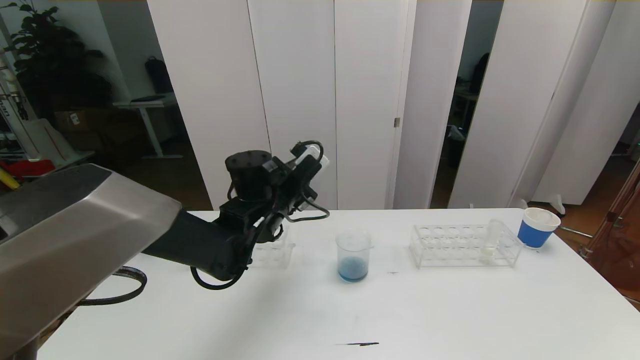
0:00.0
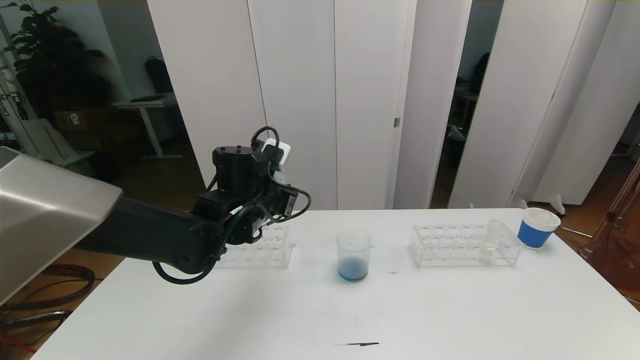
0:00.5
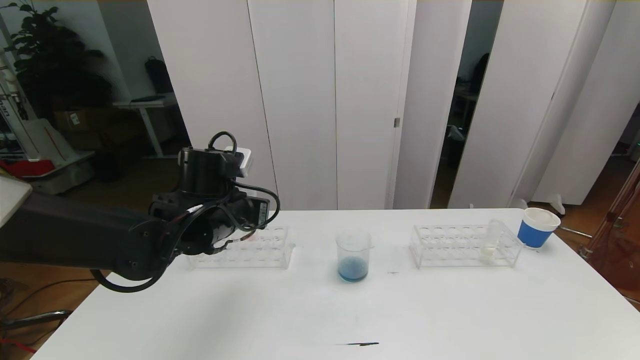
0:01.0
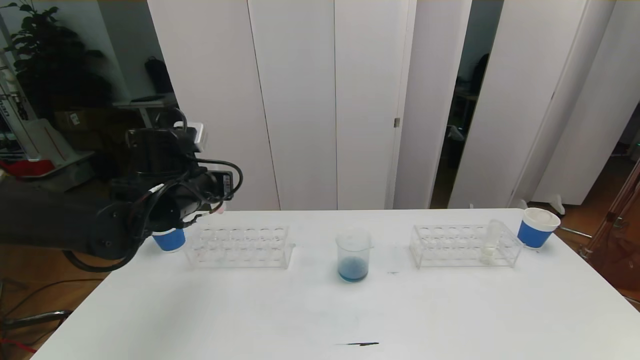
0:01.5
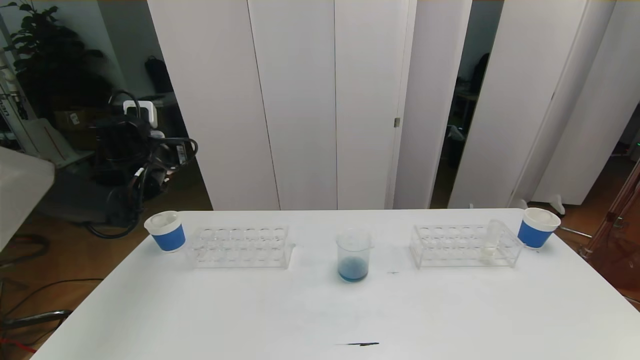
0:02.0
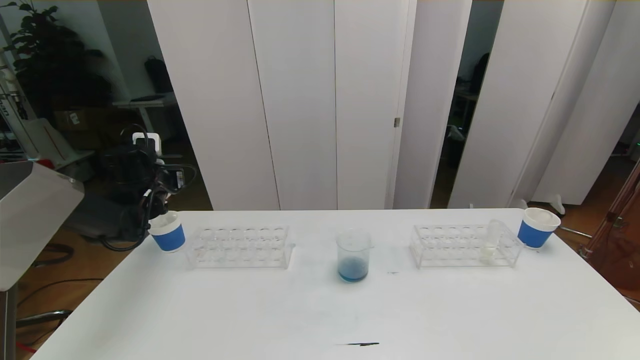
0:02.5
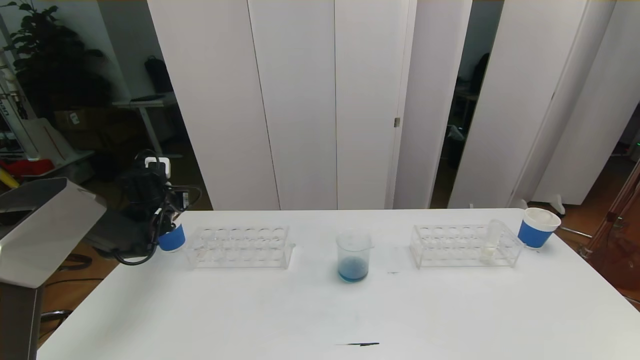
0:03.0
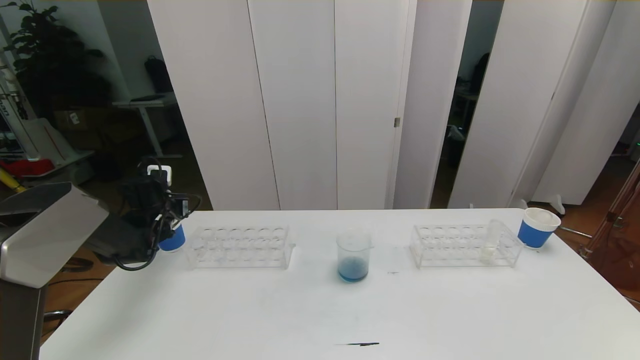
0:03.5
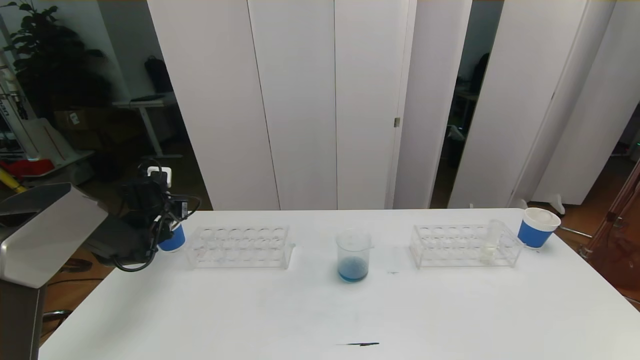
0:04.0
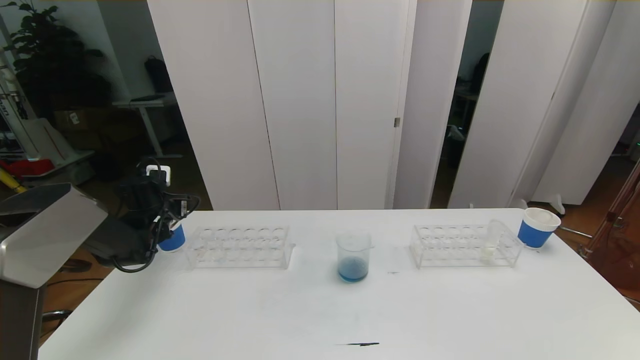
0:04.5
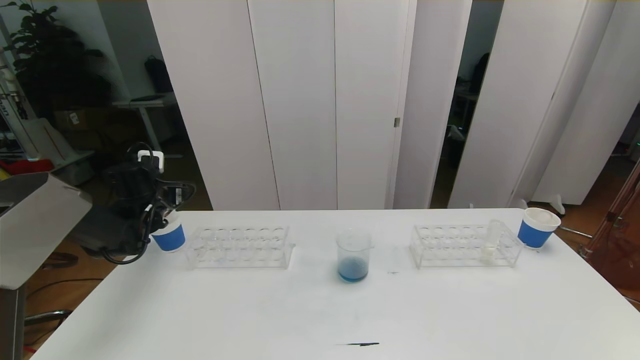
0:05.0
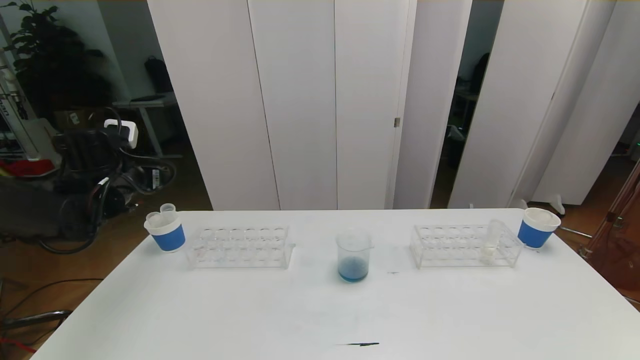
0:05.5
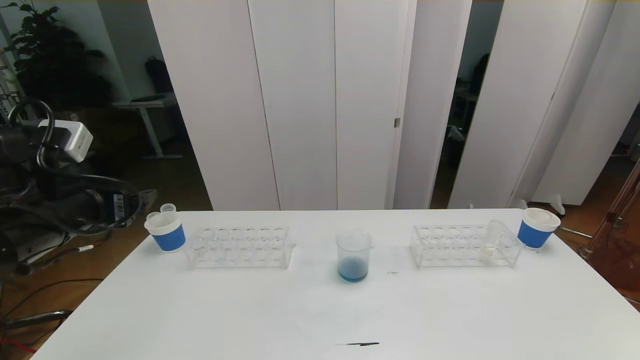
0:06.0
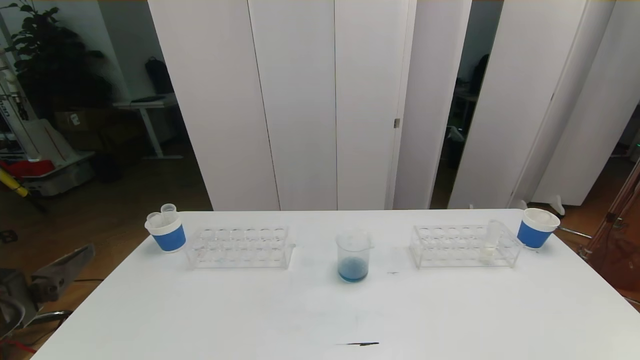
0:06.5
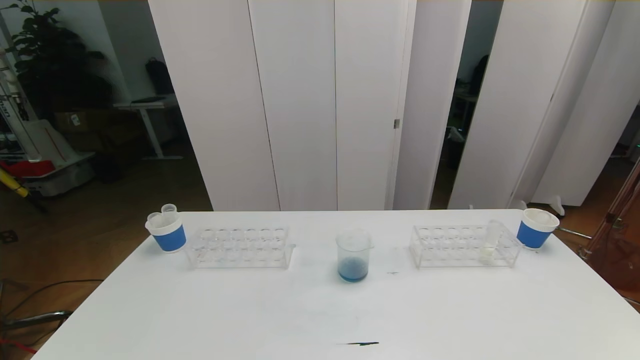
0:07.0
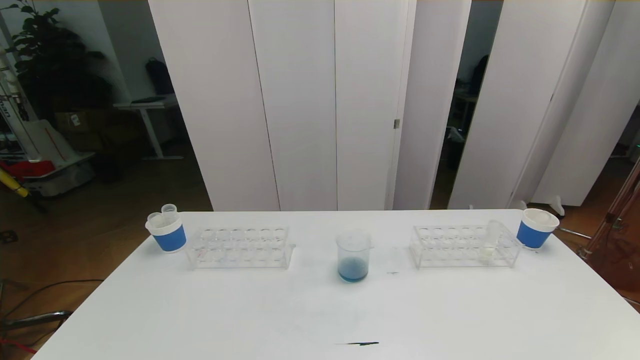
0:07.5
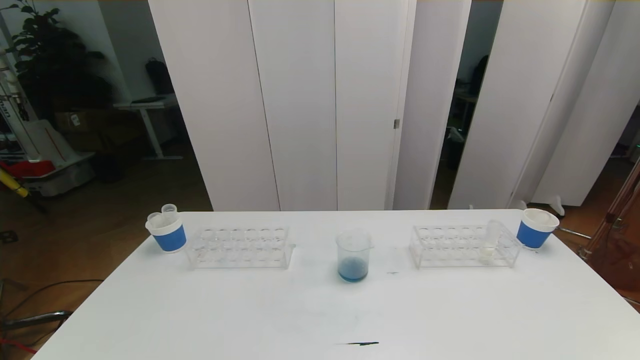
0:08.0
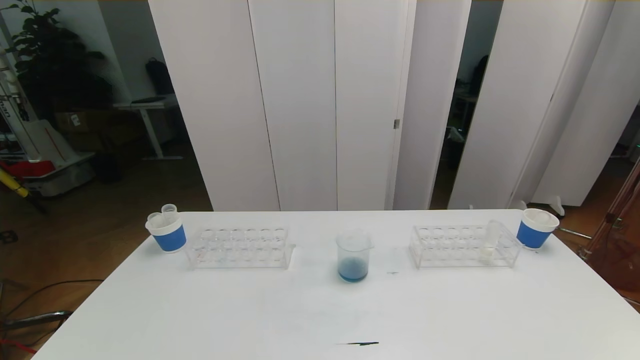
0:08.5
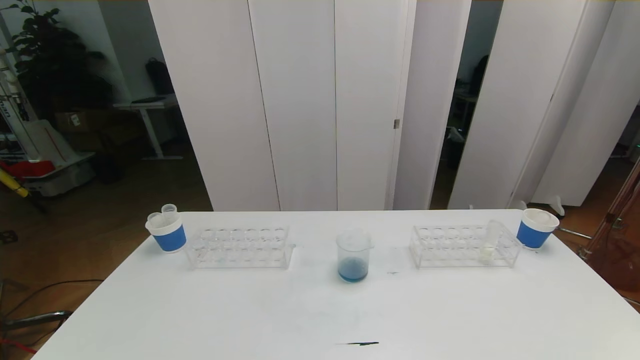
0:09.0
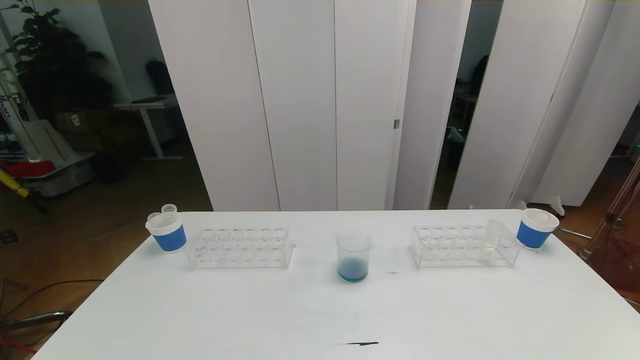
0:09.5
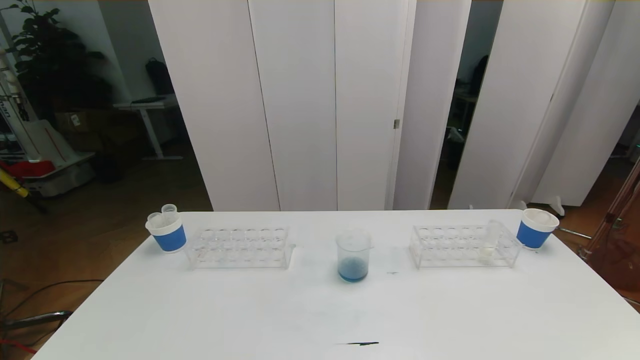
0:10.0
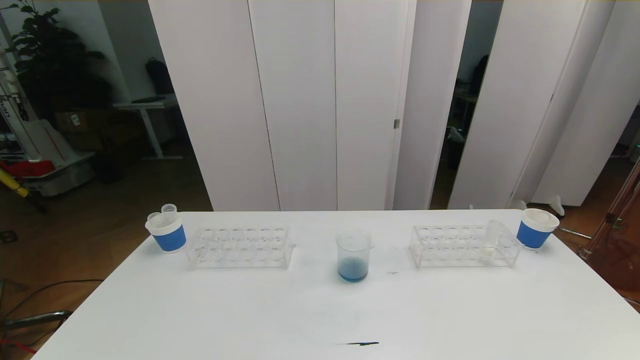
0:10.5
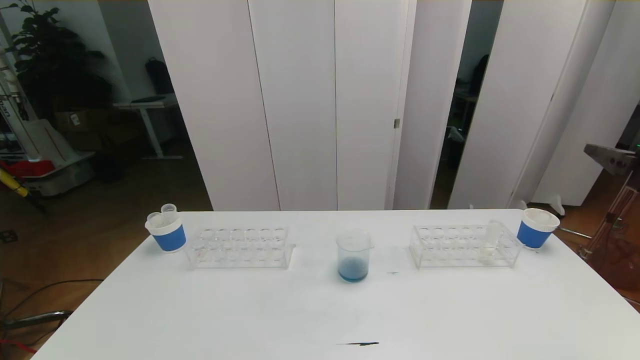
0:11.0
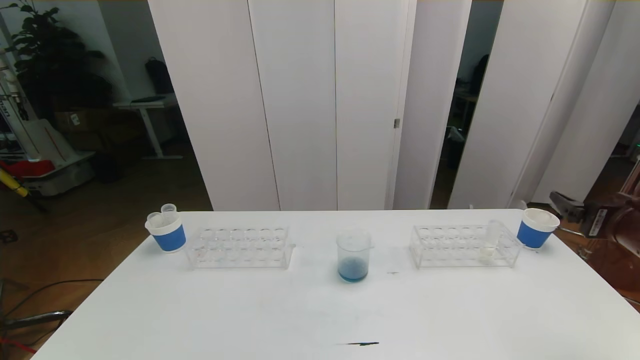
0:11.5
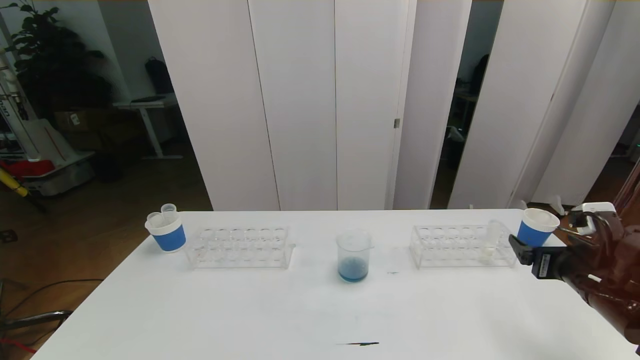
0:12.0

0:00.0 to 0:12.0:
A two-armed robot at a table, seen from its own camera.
Task of the whole recording: pick up the test tube with red pigment the test tube with blue pigment and the test tube with white pigment by grippers and pour them into the beaker.
Step, 0:00.0 to 0:06.5: Pour the orange reagent into the graduated cylinder and place the test tube into the paper cup.
0:00.0 to 0:02.0: The left gripper travels to the left by about 20 cm.
0:02.0 to 0:04.0: The left gripper heads downward and to the left, covering about 15 cm.
0:04.0 to 0:06.0: The left gripper is displaced backward and upward by about 25 cm, and opens up.
0:06.0 to 0:08.0: The left gripper shifts about 30 cm backward and downward.
0:10.0 to 0:12.0: The right gripper moves forward and downward, roughly 30 cm.

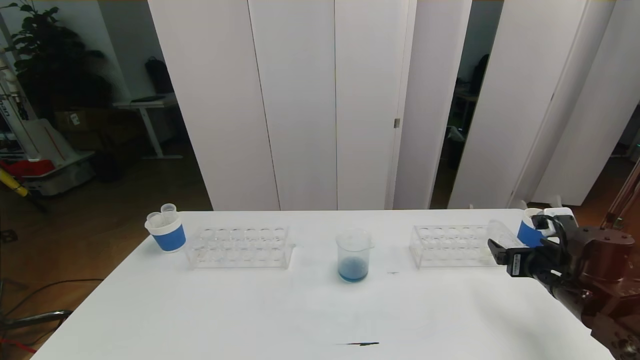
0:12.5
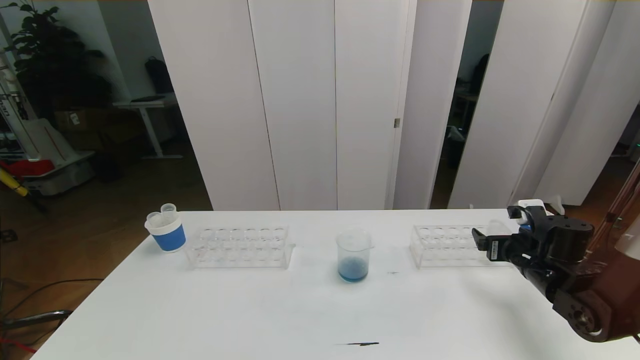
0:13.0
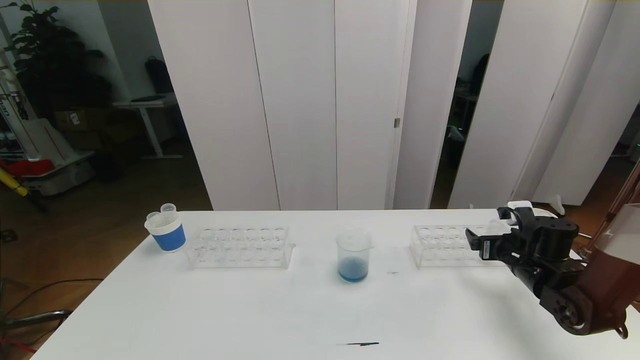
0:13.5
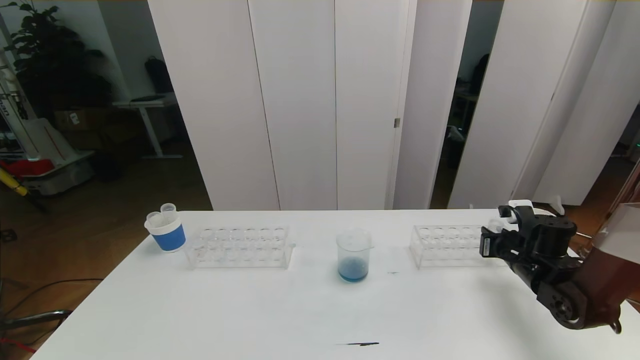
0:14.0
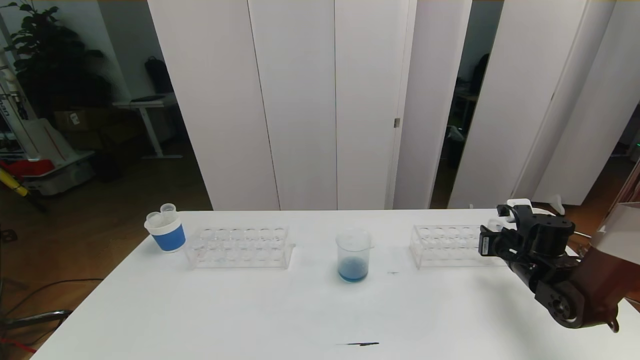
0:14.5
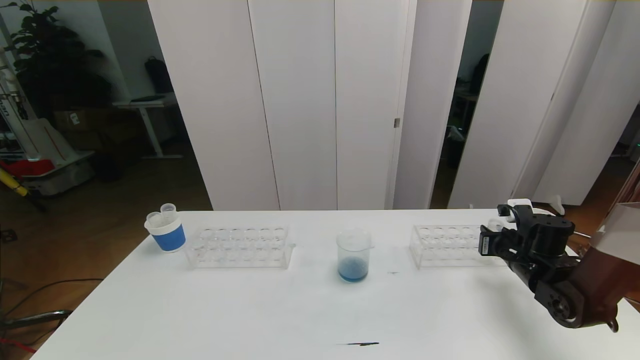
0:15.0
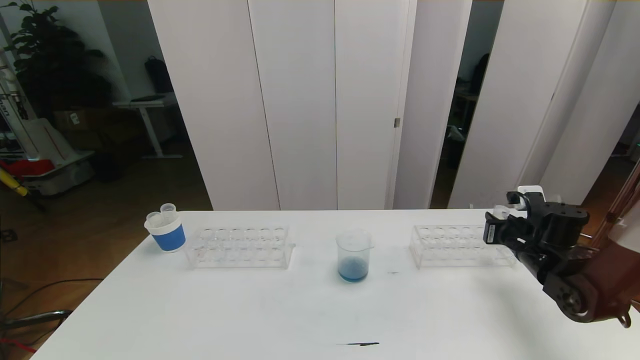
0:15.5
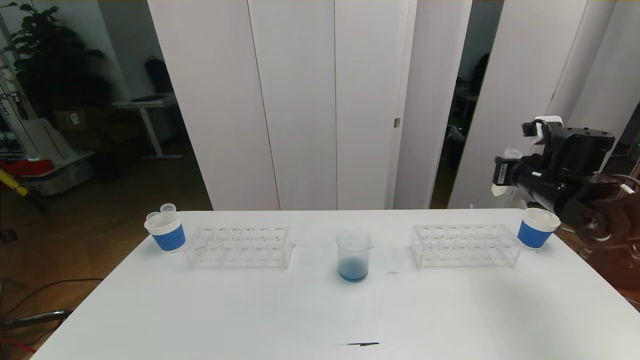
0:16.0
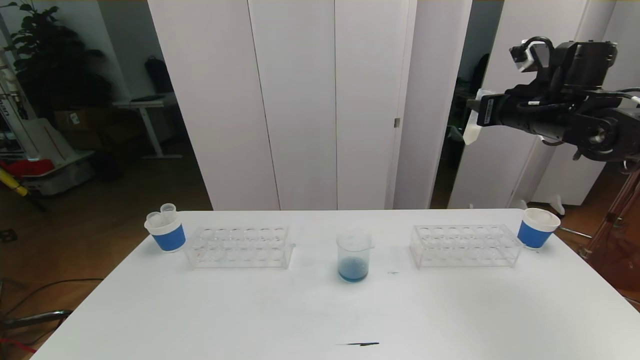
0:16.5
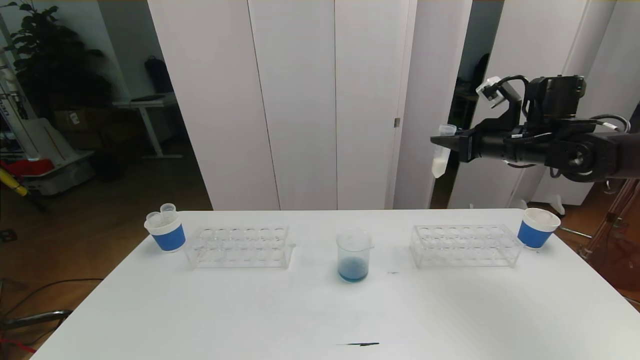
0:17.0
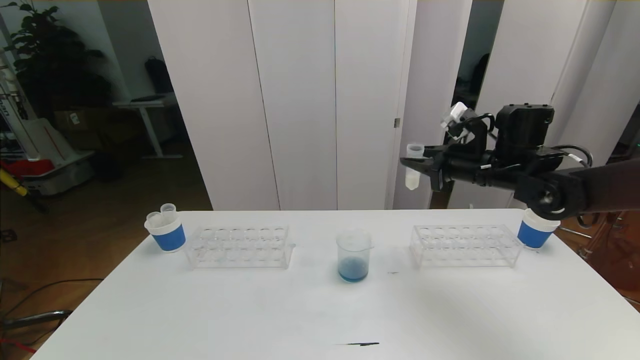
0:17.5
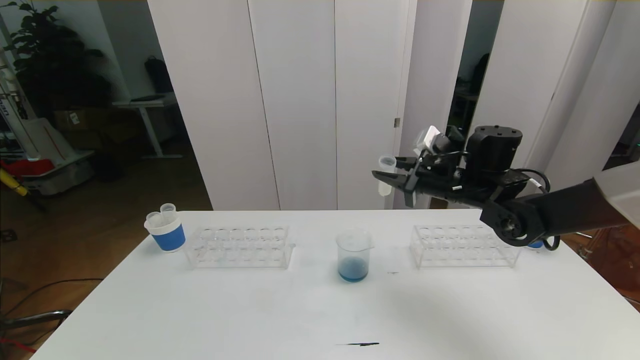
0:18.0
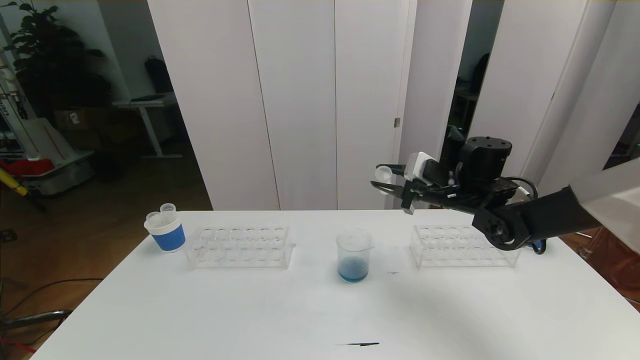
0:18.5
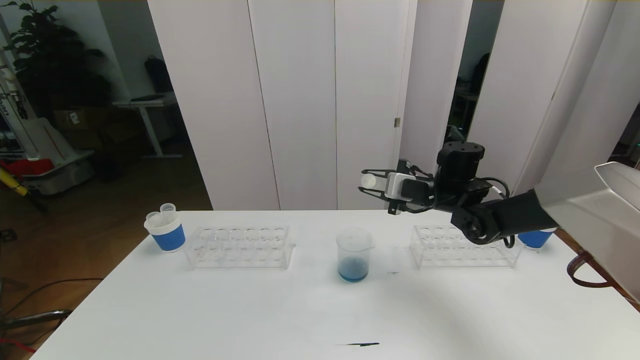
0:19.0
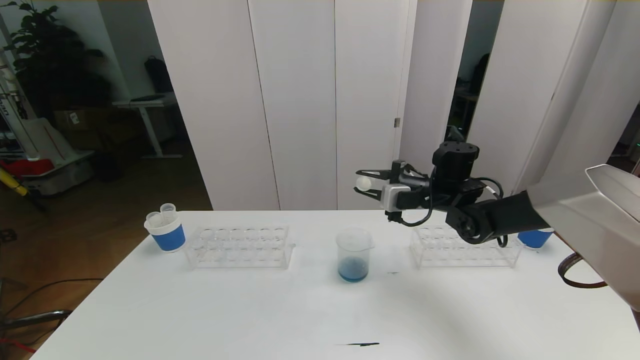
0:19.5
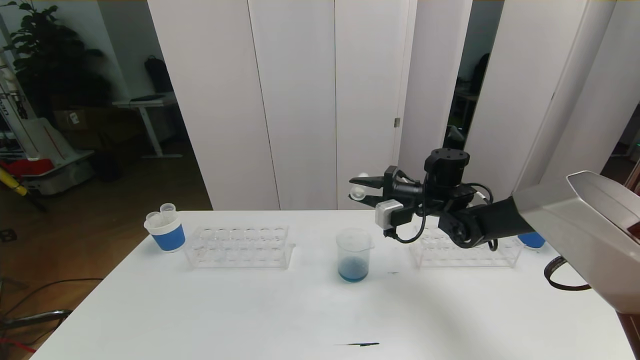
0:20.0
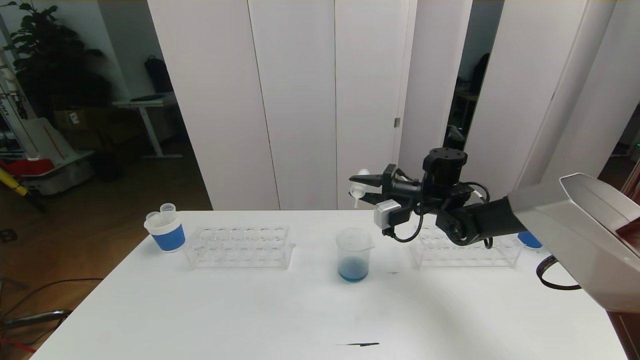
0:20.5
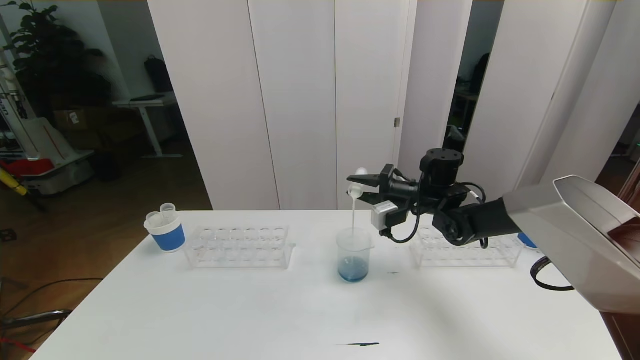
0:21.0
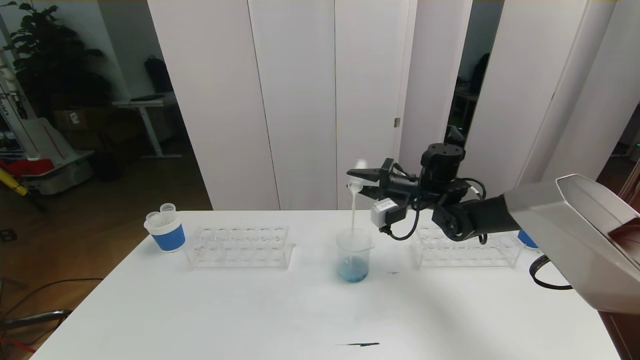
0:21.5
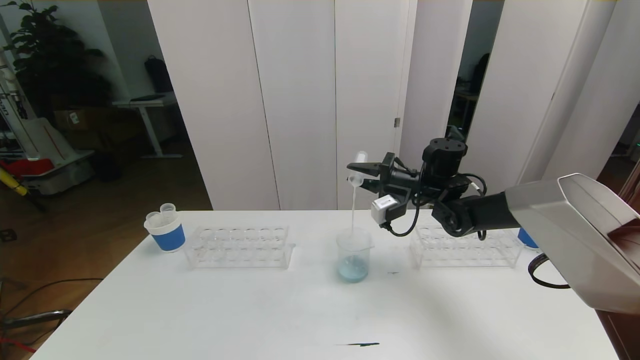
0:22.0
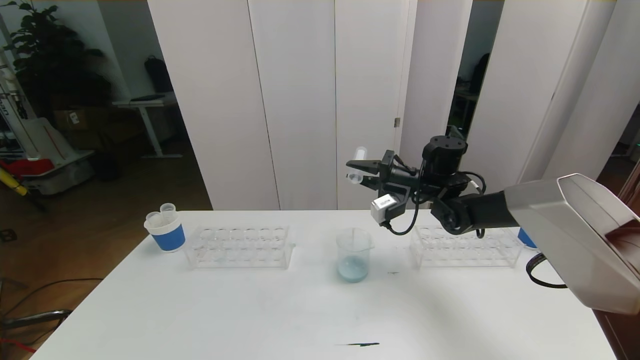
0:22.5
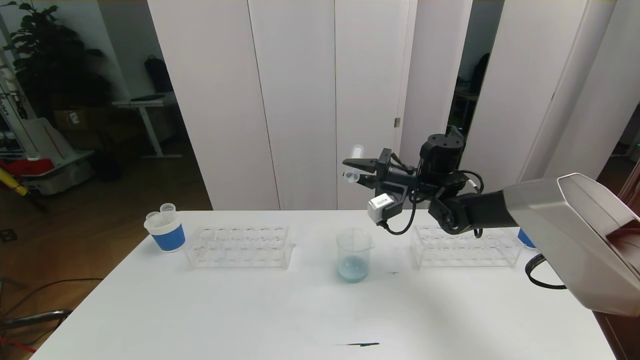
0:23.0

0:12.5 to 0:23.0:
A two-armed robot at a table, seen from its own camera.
Task of the whole recording: pick up the test tube with red pigment the test tube with blue pigment and the test tube with white pigment by grippers and pour them into the beaker.
0:12.5 to 0:14.5: The right gripper travels forward by approximately 5 cm, and closes up.
0:14.5 to 0:16.5: The right gripper goes roughly 25 cm upward.
0:16.5 to 0:19.0: The right gripper moves downward and to the left, approximately 20 cm.
0:21.0 to 0:23.0: The grippers stay close to where they were, moving slightly.
